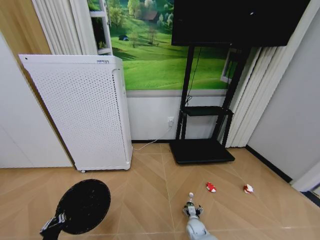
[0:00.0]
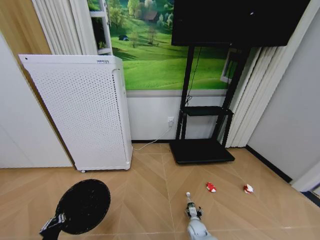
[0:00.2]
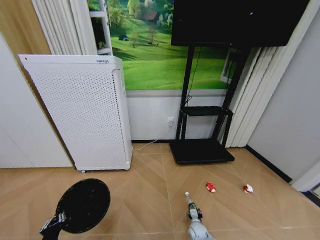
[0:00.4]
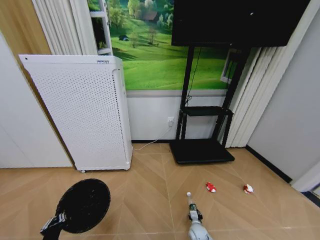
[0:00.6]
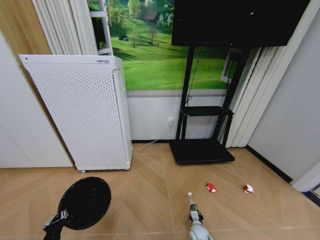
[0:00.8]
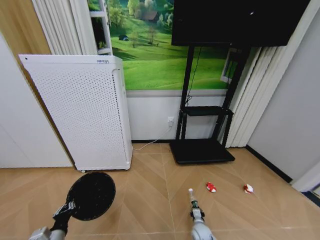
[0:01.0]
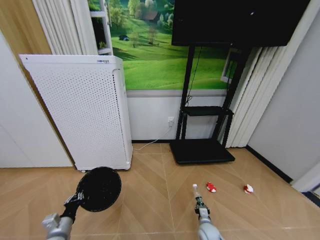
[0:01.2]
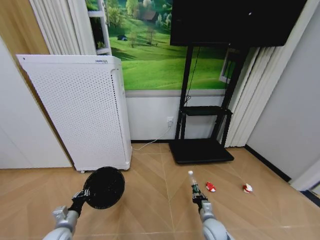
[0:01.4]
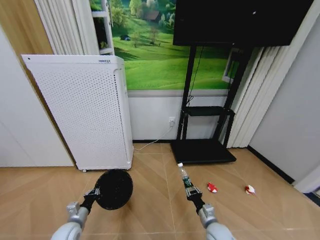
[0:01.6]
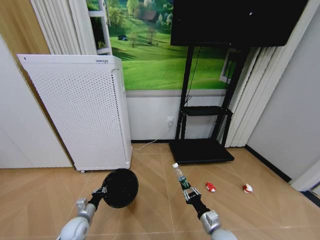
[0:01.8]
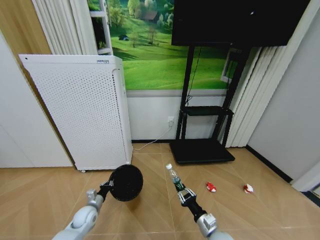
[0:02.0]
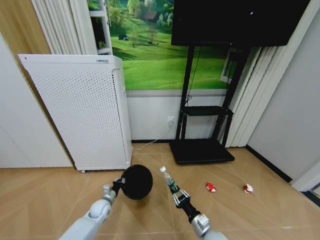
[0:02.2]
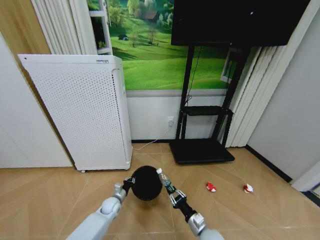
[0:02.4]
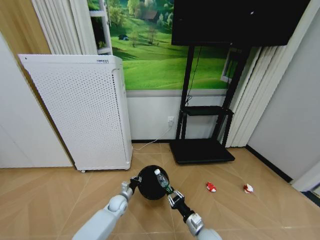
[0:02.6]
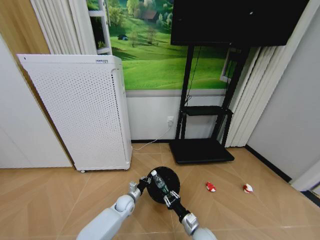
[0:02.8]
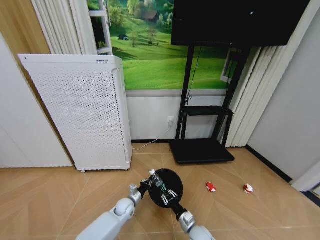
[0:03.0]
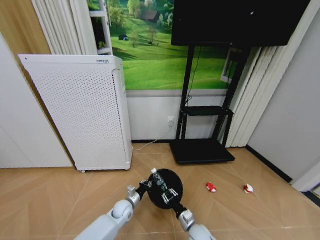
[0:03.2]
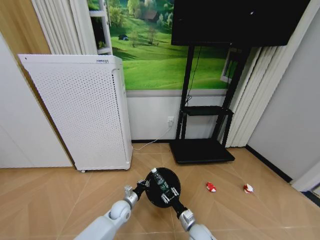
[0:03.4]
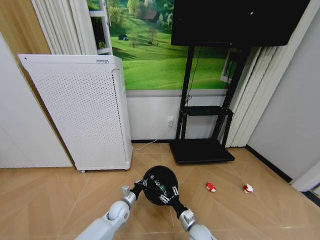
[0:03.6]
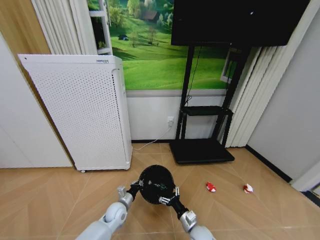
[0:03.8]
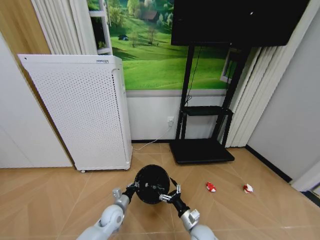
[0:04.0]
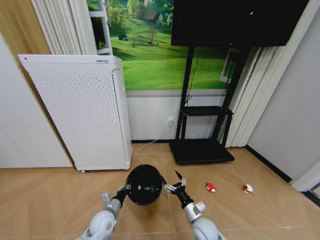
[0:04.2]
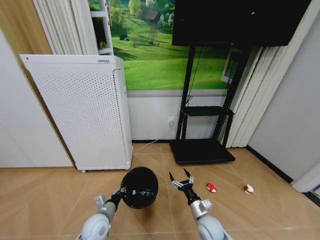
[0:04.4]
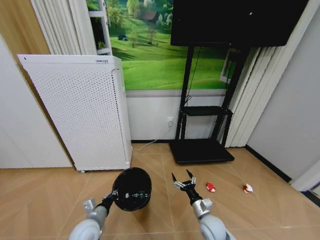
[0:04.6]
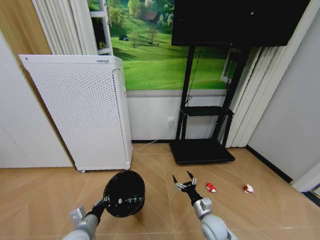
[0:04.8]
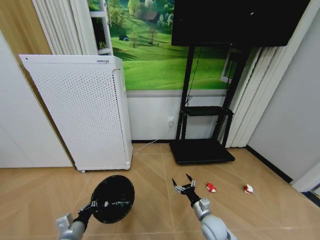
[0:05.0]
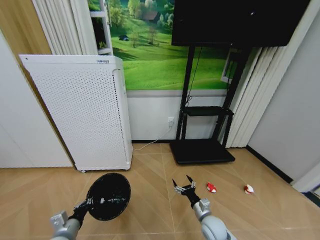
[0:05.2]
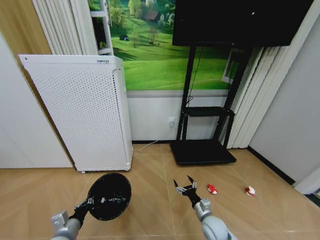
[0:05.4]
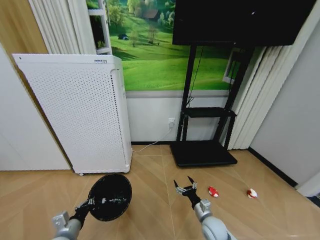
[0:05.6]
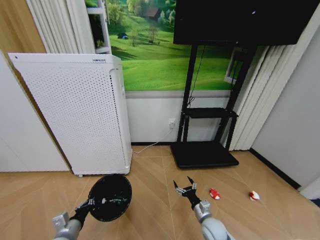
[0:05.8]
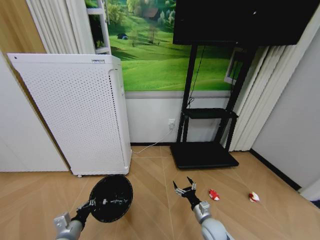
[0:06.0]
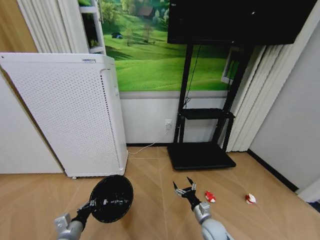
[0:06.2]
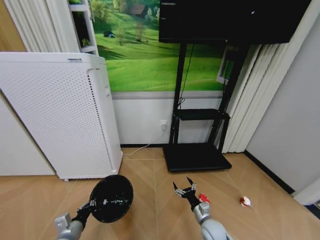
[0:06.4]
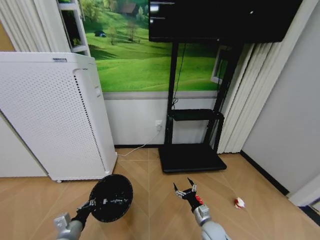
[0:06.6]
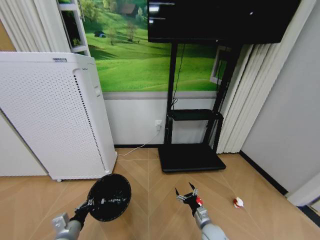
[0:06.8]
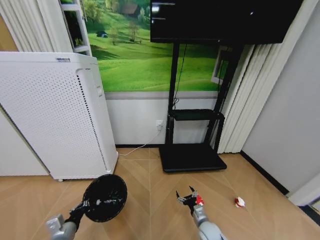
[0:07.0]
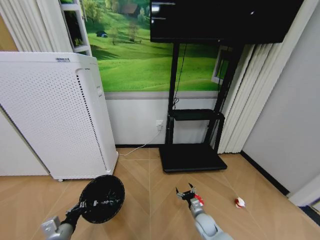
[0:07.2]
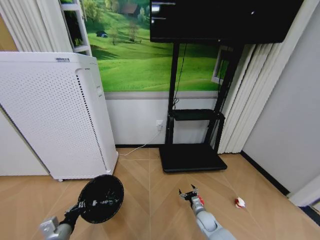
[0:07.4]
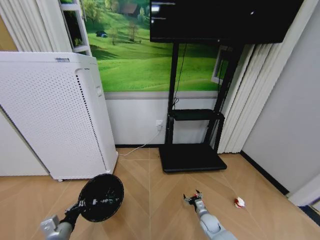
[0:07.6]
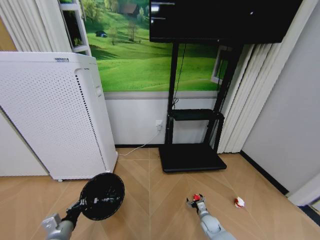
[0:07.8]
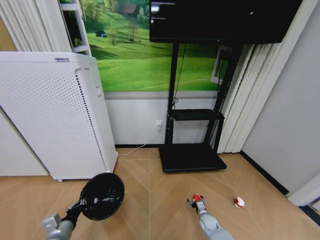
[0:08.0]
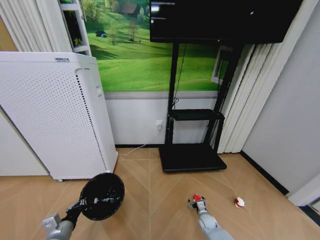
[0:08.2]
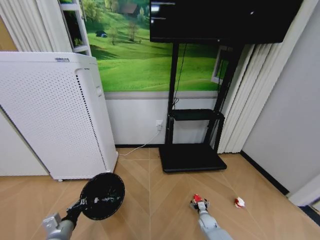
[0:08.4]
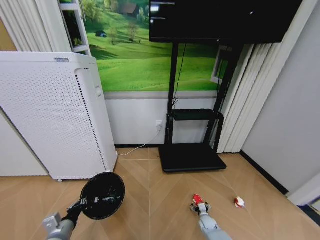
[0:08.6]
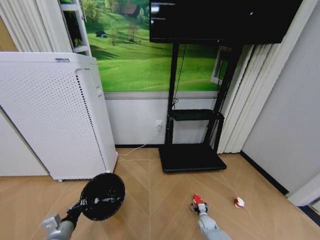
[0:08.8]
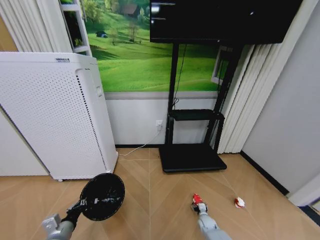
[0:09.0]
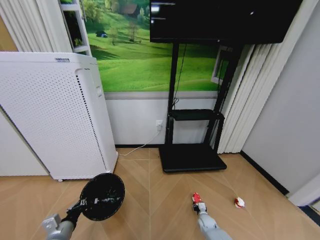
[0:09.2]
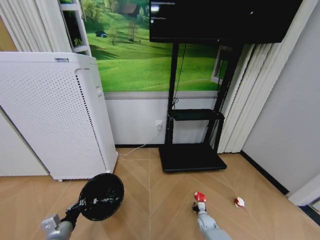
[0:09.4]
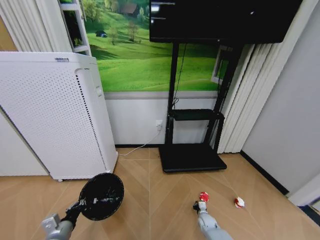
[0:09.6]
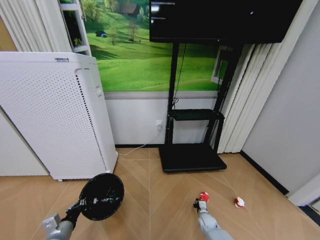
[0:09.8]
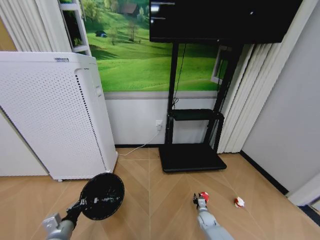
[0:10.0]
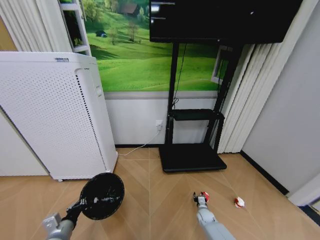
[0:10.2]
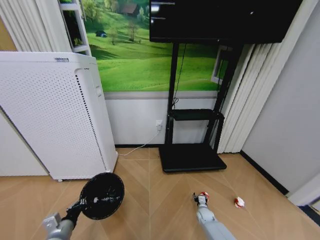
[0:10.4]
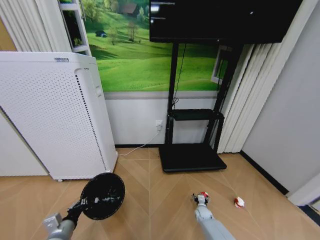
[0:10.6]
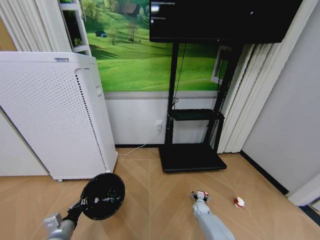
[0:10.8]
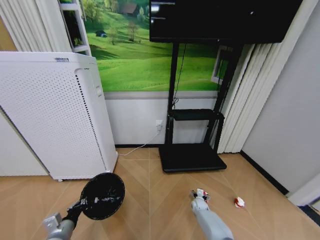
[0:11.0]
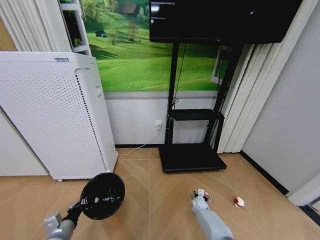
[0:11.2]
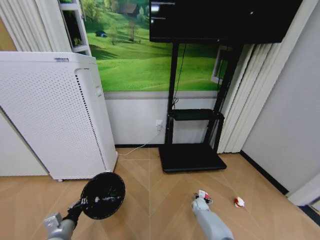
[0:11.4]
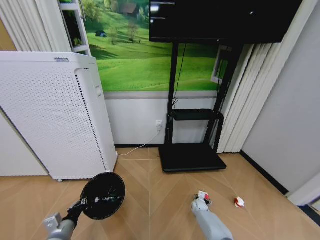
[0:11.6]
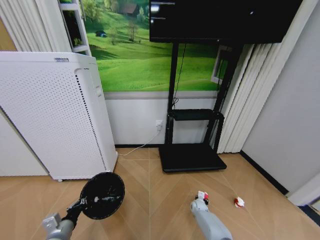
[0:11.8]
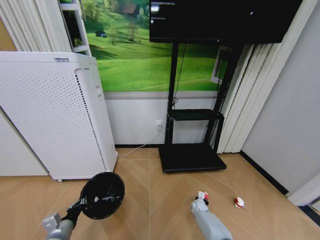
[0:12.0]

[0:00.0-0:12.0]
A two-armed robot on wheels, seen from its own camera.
Task of the whole recording: Pick up the trash bin and place the garbage on the floor into it.
0:00.0 to 0:01.6: The left gripper goes roughly 15 cm forward, while the right gripper is displaced upward and backward by approximately 20 cm, and closes up.
0:01.6 to 0:03.0: The left gripper travels to the right and forward by about 25 cm; the right gripper shifts about 5 cm to the left.
0:03.0 to 0:04.4: The left gripper shifts some 15 cm backward, upward and to the left. Meanwhile the right gripper moves upward, roughly 5 cm, and opens.
0:04.4 to 0:06.0: The left gripper travels to the left and backward by some 15 cm.
0:06.0 to 0:07.6: The right gripper is displaced downward and forward by roughly 10 cm.
0:07.6 to 0:09.0: The right gripper moves downward, roughly 5 cm.
0:09.0 to 0:10.4: The right gripper closes and opens again.

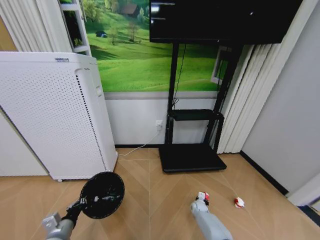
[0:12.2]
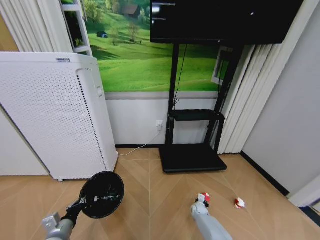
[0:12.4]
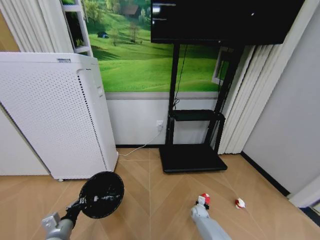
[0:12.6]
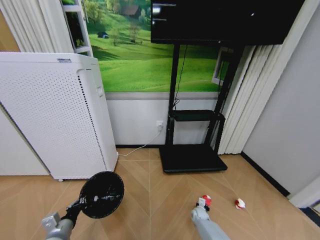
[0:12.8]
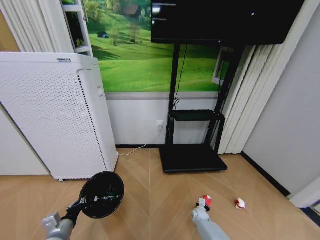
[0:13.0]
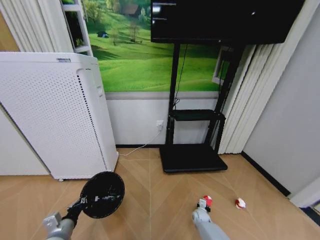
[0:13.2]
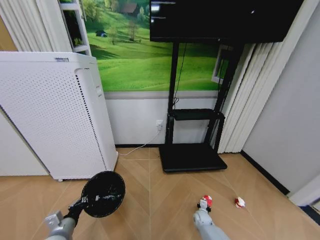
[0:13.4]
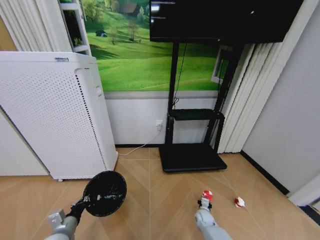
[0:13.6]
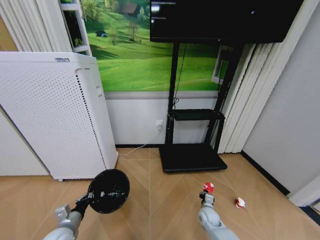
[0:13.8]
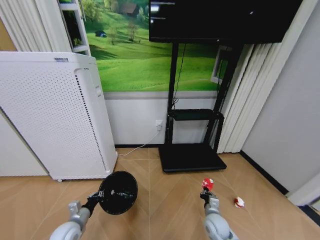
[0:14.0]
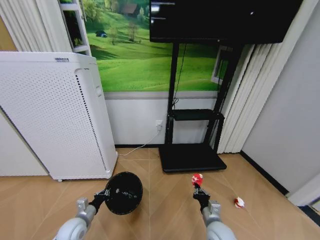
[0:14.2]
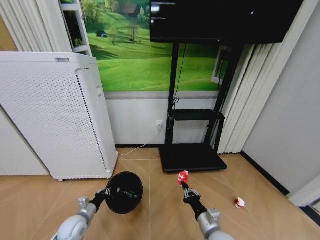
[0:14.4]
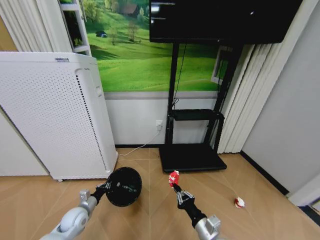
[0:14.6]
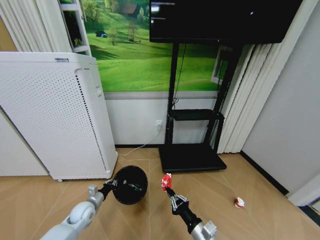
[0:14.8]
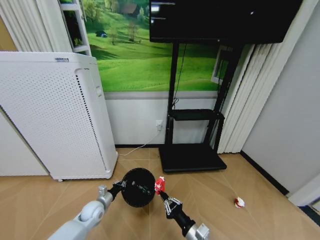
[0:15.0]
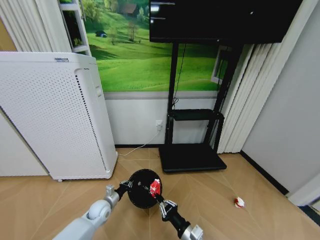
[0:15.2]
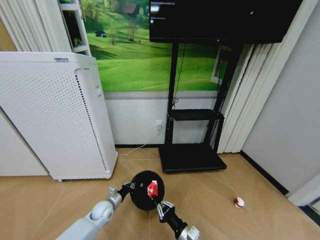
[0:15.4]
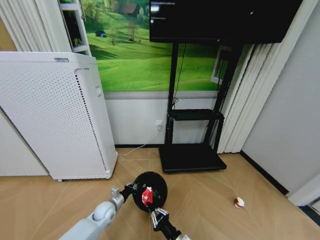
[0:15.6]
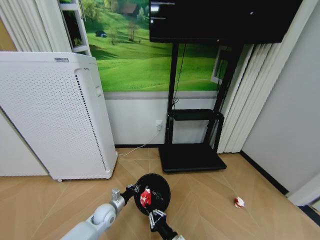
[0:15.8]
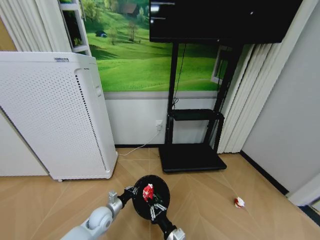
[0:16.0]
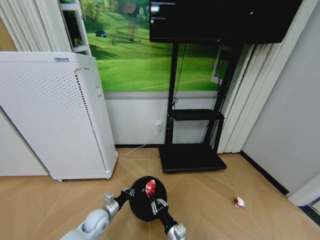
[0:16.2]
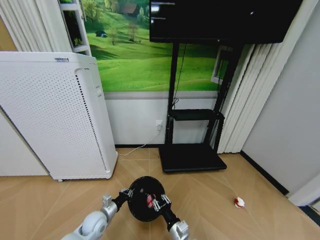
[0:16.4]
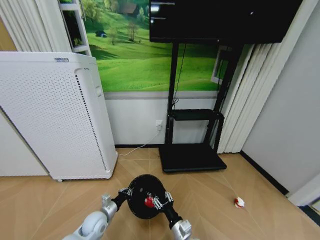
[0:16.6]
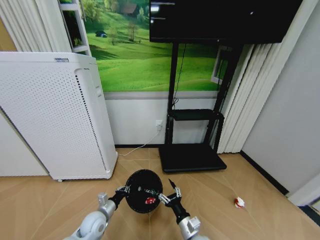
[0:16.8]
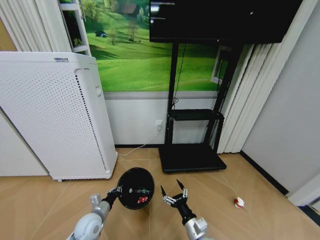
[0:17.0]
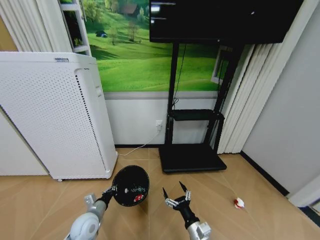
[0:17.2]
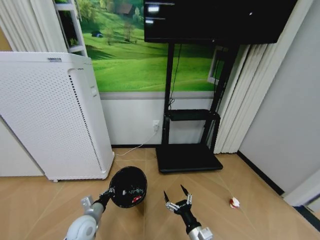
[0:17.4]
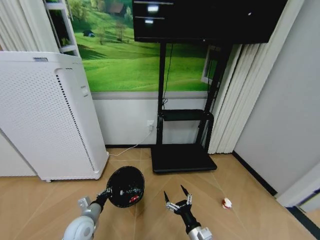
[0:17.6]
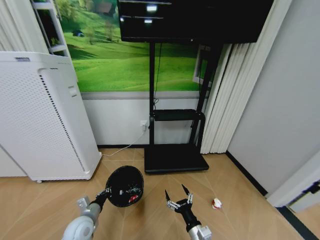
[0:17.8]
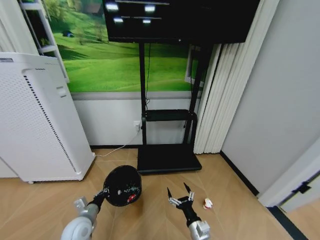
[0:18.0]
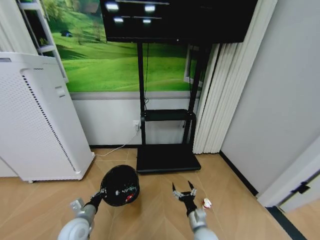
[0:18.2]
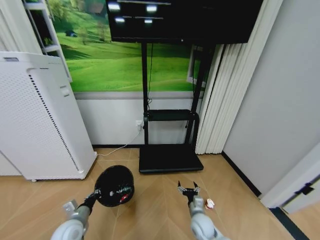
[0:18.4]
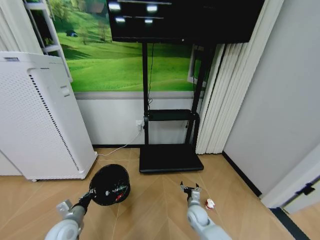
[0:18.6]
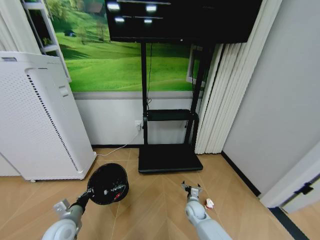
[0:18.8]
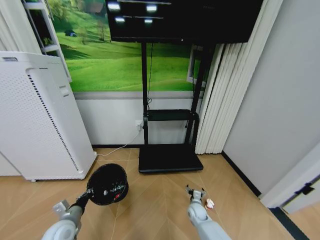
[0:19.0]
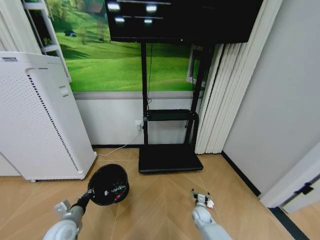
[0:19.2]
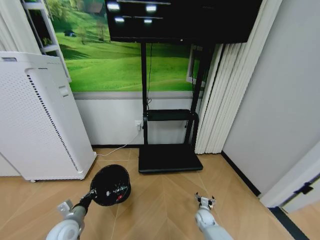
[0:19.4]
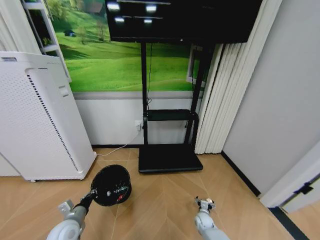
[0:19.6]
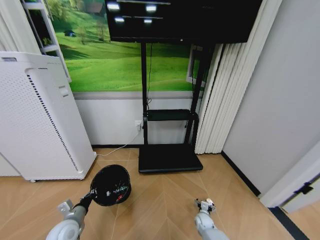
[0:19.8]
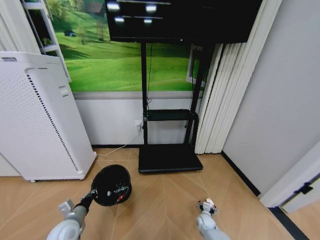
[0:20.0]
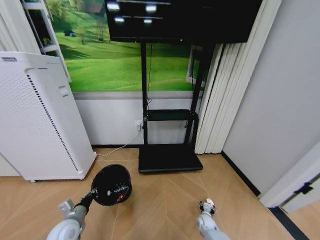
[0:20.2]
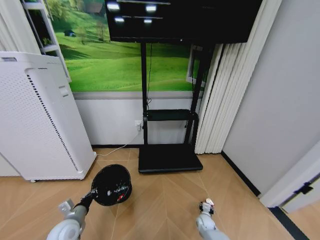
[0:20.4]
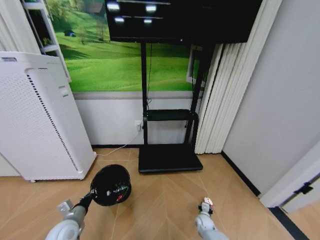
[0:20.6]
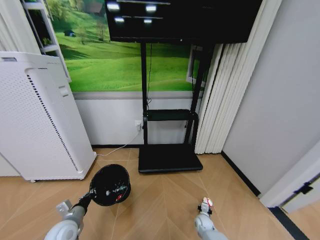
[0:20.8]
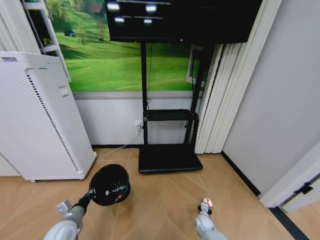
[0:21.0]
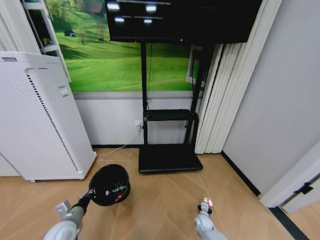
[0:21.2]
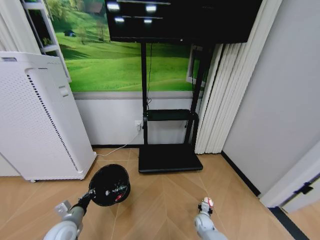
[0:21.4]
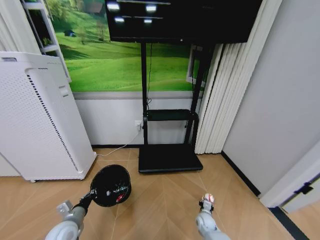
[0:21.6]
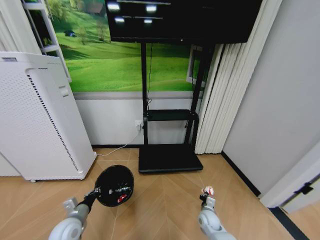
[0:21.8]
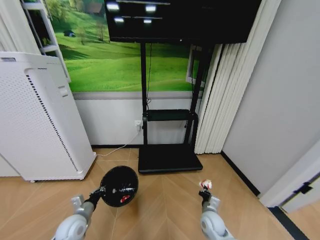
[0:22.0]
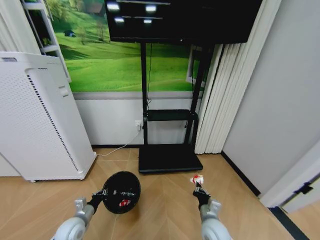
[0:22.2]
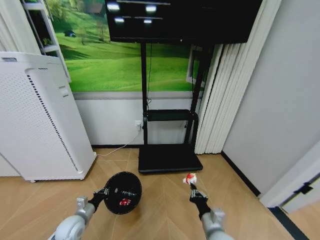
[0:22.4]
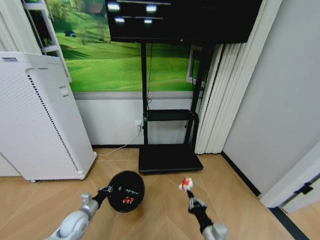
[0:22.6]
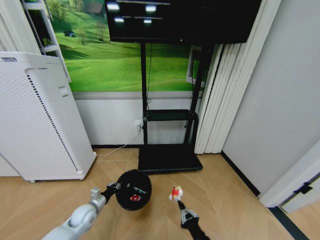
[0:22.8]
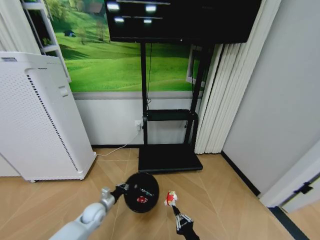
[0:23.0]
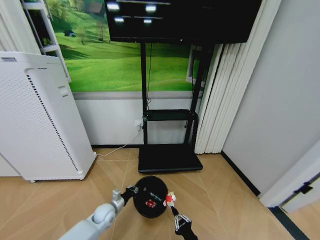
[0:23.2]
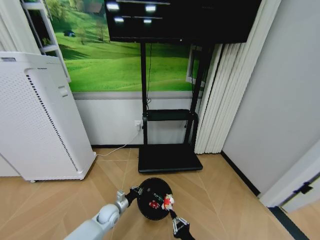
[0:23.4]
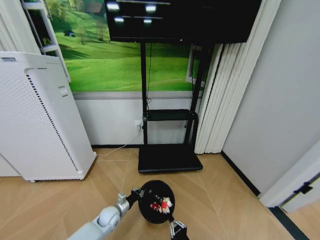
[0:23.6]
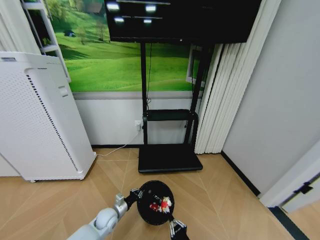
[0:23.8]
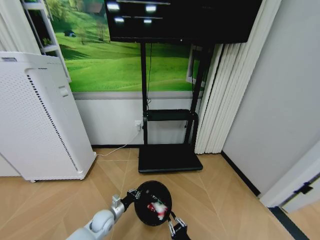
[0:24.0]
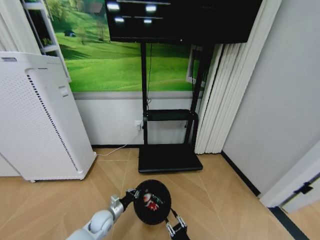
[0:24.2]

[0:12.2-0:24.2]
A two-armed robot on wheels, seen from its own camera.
Task of the whole recording: Pick up the trash bin and place the garbage on the floor into it.
0:12.2 to 0:13.8: The right gripper is displaced upward and backward by some 10 cm.
0:13.8 to 0:15.2: The right gripper heads backward, upward and to the left, covering about 25 cm, while the left gripper shifts approximately 15 cm forward, downward and to the right.
0:15.2 to 0:16.6: The right gripper moves some 5 cm, and opens its fingers. Meanwhile the left gripper heads backward, covering some 5 cm.
0:16.6 to 0:18.2: The right gripper heads to the right, covering some 5 cm, and opens its fingers, while the left gripper shifts some 5 cm upward.
0:18.2 to 0:19.8: The right gripper travels downward, forward and to the right by some 20 cm.
0:21.2 to 0:22.6: The left gripper shifts approximately 5 cm forward. The right gripper shifts approximately 30 cm upward and backward.
0:22.6 to 0:24.2: The left gripper shifts about 10 cm to the right, while the right gripper is displaced downward by approximately 10 cm, and opens.
